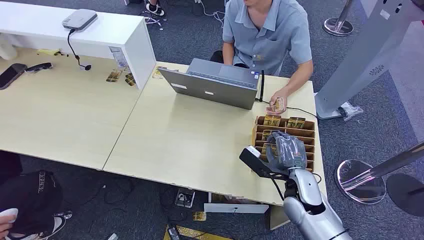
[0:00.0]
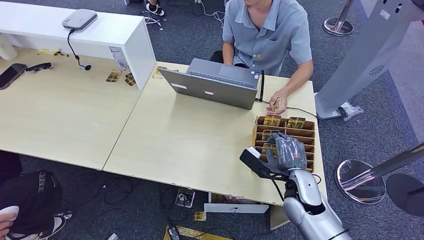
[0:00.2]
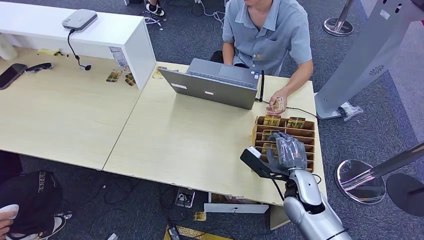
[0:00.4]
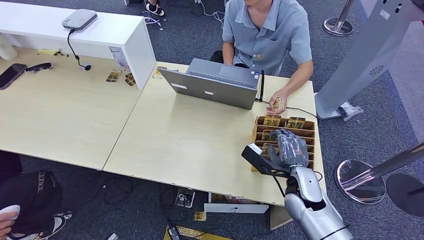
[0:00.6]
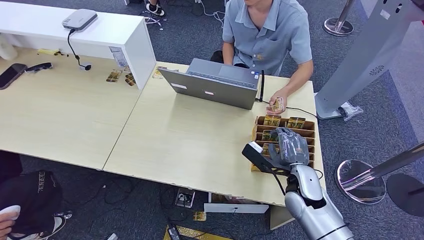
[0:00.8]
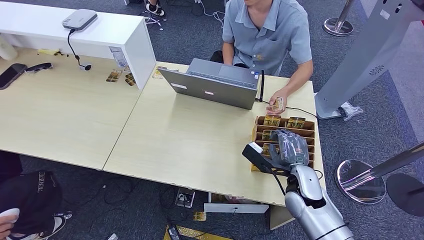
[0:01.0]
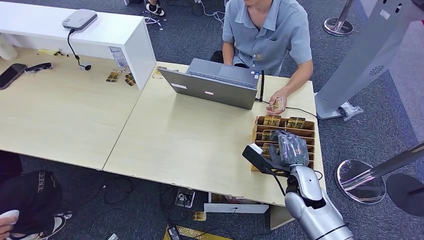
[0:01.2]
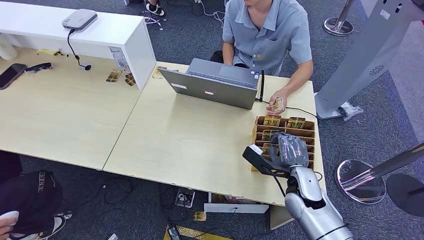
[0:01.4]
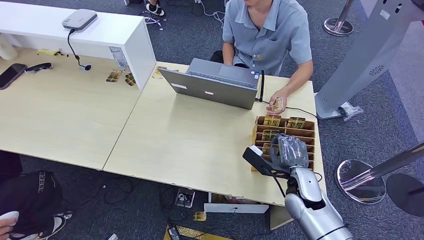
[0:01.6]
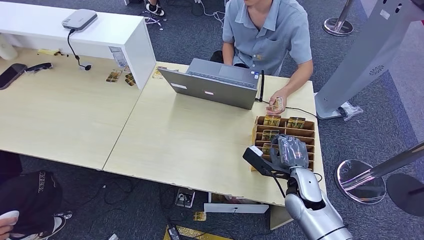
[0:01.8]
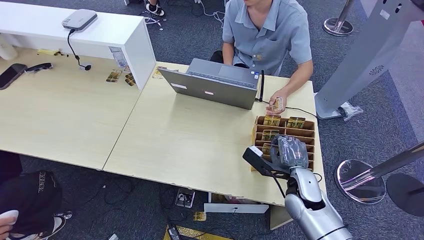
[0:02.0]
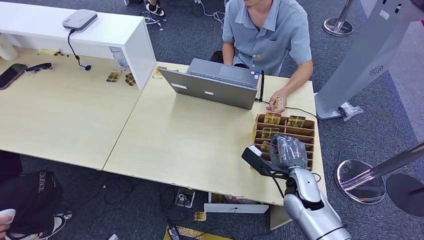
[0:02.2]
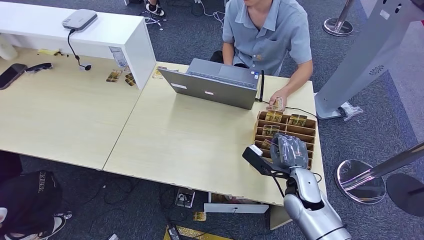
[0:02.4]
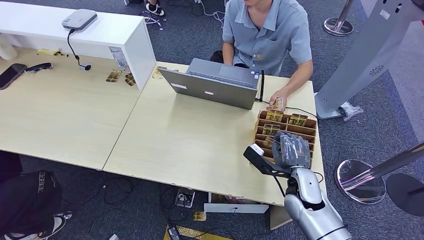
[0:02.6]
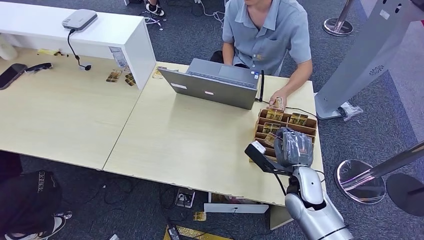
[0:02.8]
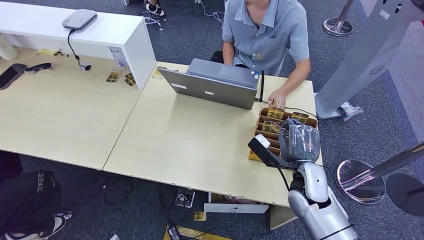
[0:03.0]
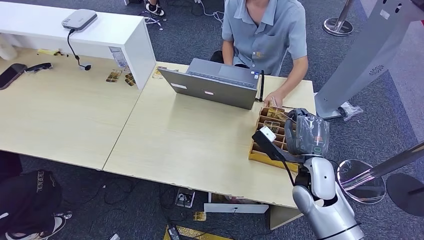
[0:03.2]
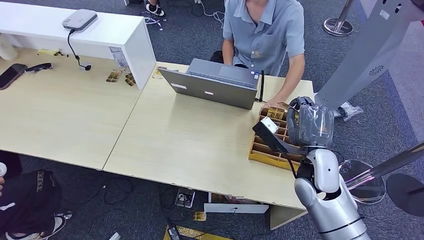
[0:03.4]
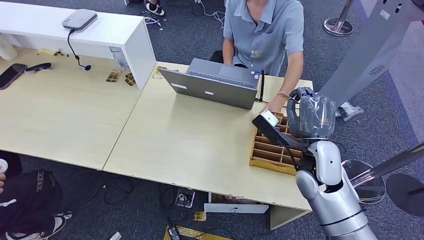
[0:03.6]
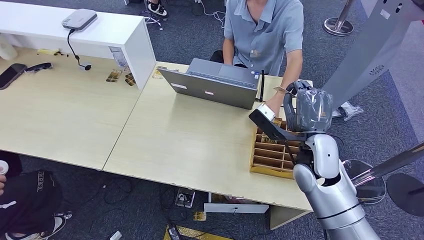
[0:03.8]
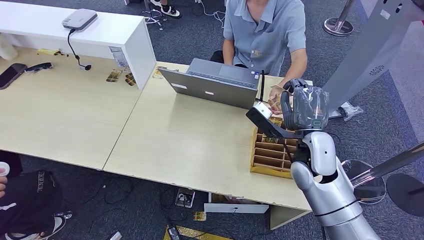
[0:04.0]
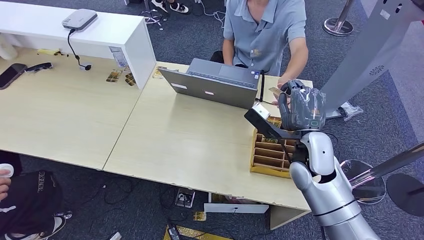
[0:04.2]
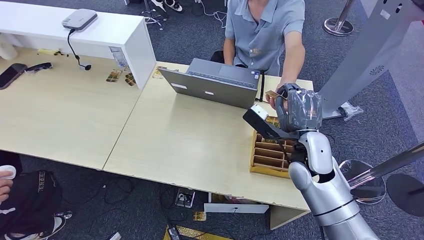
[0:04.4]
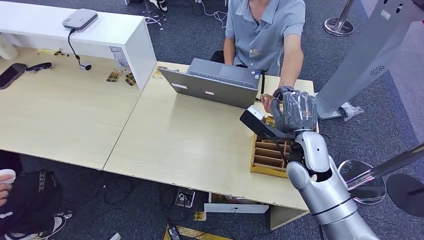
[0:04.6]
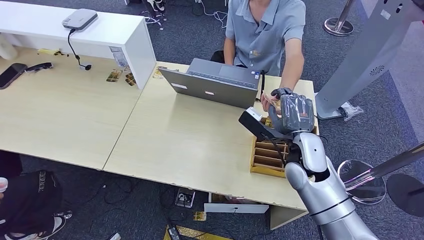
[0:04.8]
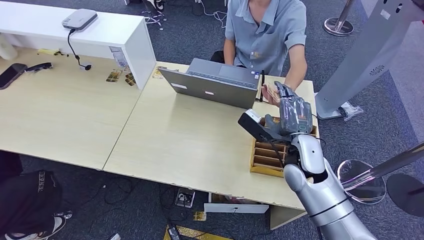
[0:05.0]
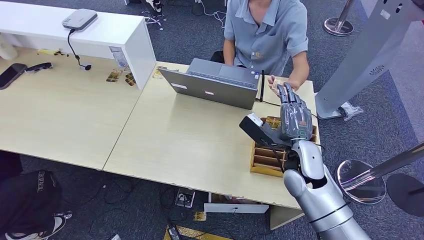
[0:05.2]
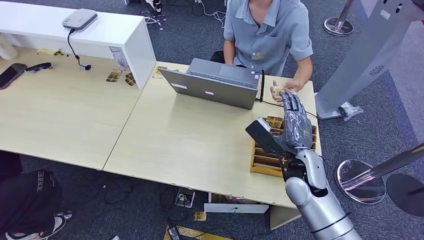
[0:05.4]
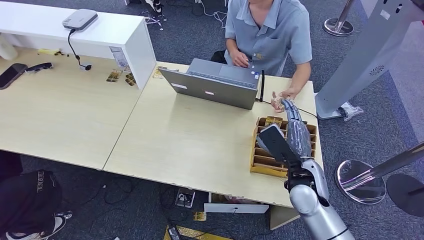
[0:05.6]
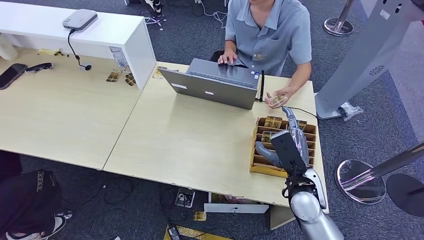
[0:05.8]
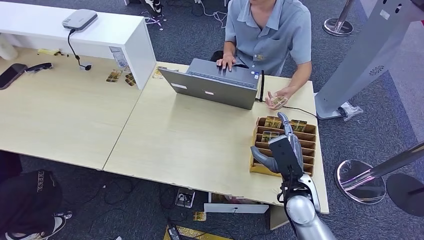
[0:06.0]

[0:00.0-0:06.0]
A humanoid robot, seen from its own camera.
Step, 0:00.0 to 0:03.6: Pick up the room card from the card holder.
Step, 0:03.8 to 0:06.0: Hand the room card to the target.
0:01.6 to 0:03.0: The hands stay close to where they were, moving slightly.
0:03.0 to 0:04.4: The right hand travels upward by roughly 10 cm.
0:04.4 to 0:06.0: The right hand goes some 10 cm downward and backward.

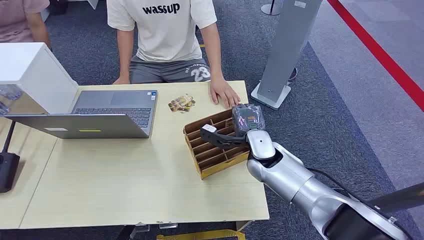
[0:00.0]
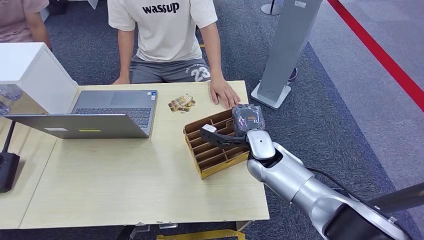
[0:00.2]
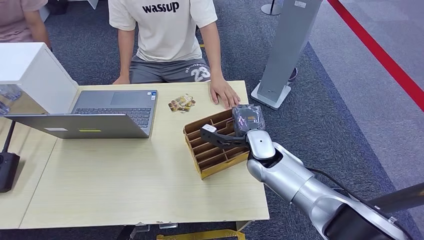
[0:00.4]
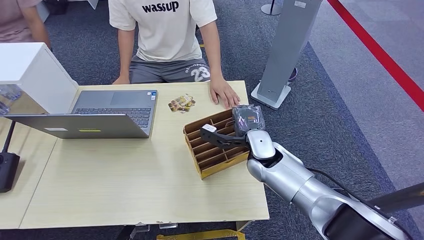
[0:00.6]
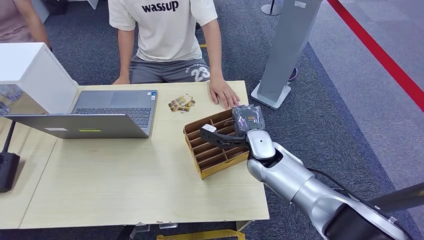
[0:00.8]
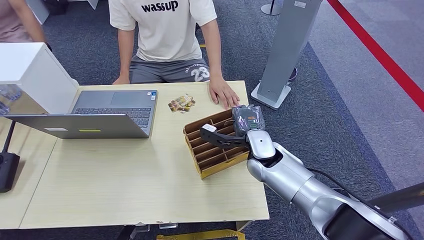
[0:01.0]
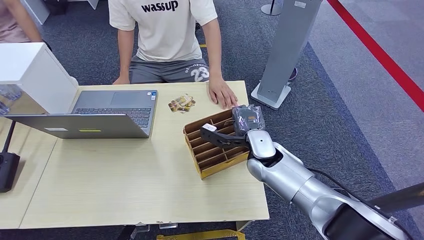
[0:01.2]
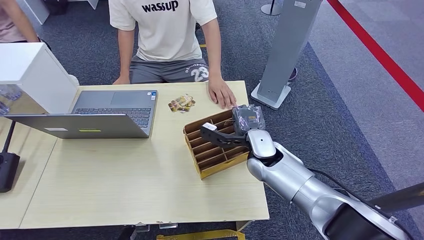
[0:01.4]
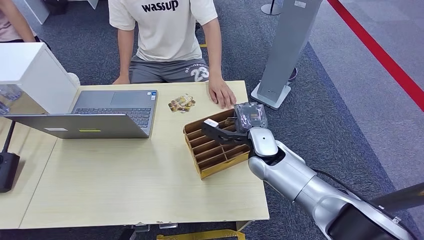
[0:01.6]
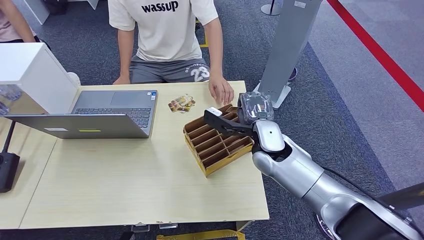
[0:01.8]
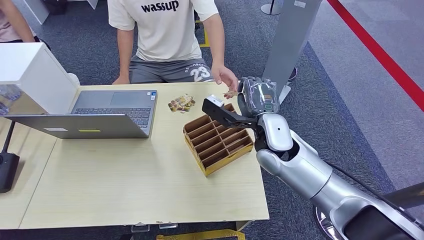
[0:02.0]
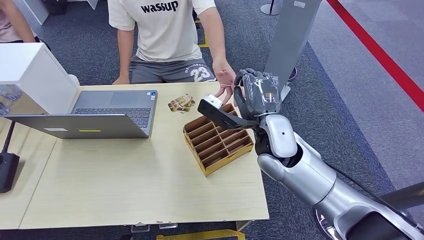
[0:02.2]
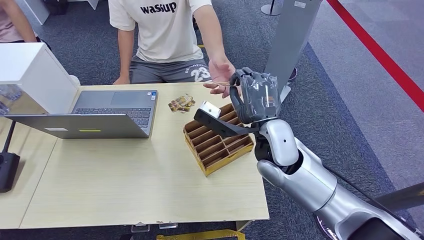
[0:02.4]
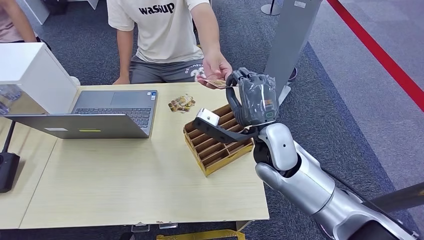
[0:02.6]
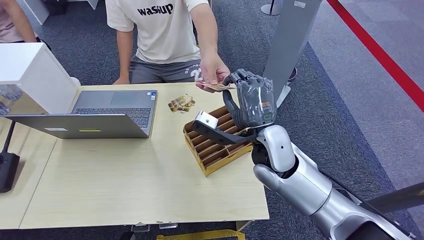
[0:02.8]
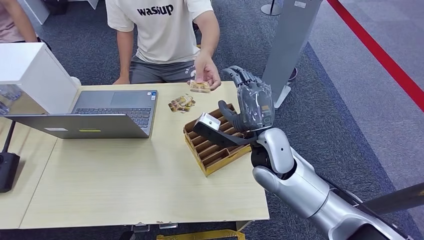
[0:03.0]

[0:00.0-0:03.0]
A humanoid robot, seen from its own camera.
Step, 0:01.8 to 0:03.0: Hand the room card to the target.
0:01.6 to 0:03.0: The right hand goes some 5 cm upward.

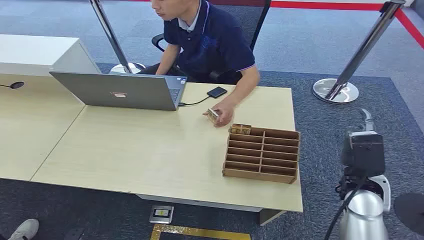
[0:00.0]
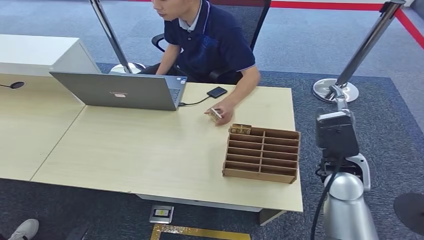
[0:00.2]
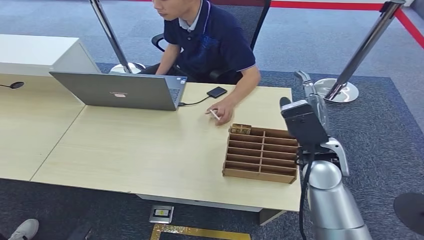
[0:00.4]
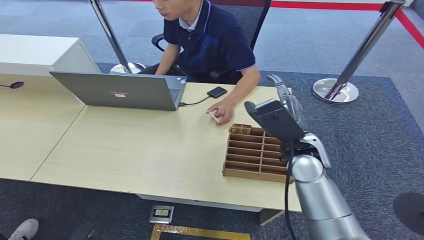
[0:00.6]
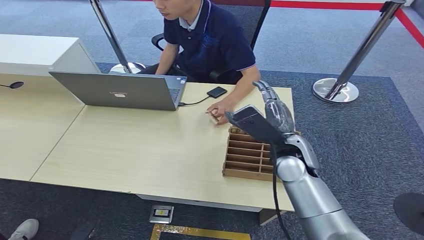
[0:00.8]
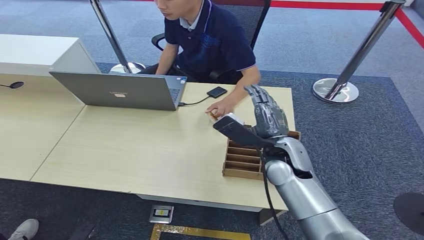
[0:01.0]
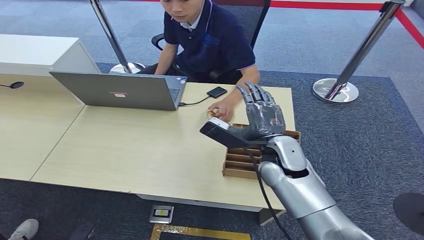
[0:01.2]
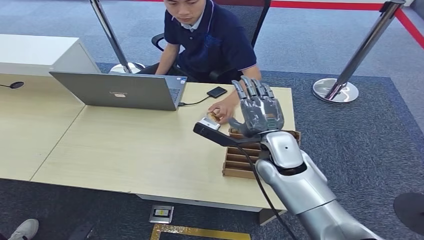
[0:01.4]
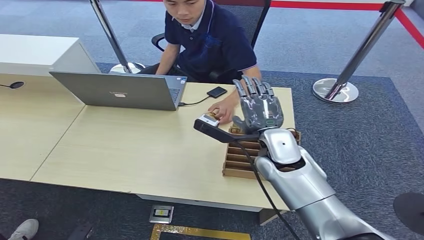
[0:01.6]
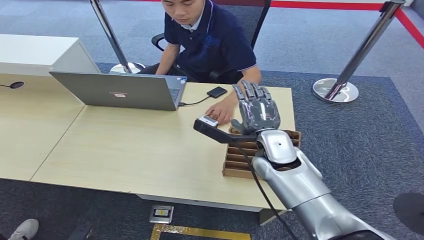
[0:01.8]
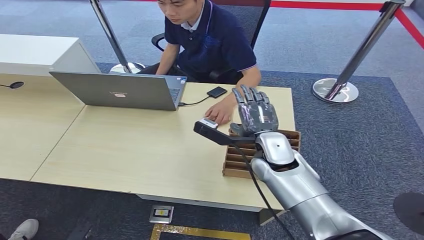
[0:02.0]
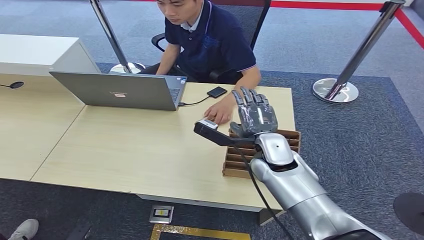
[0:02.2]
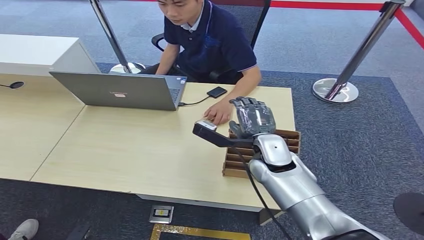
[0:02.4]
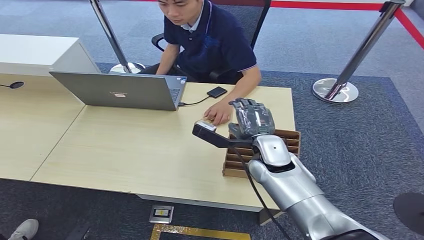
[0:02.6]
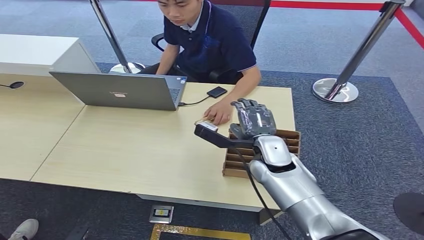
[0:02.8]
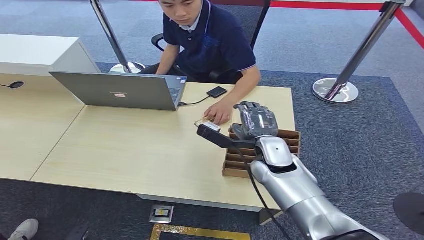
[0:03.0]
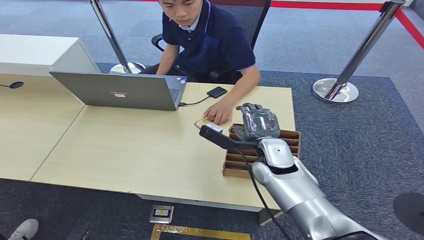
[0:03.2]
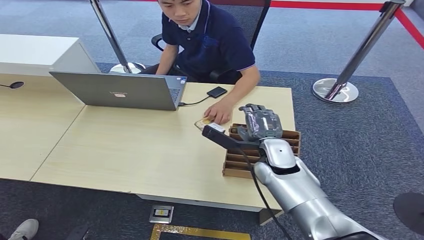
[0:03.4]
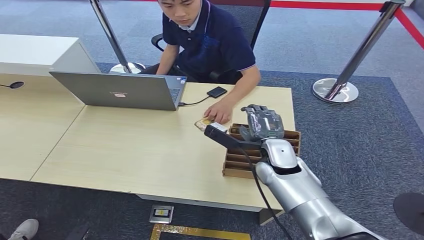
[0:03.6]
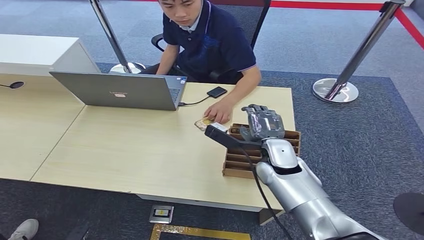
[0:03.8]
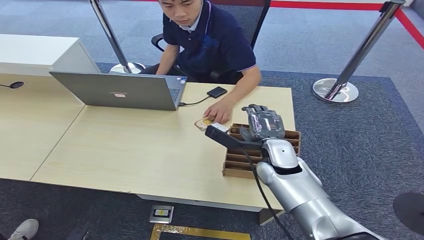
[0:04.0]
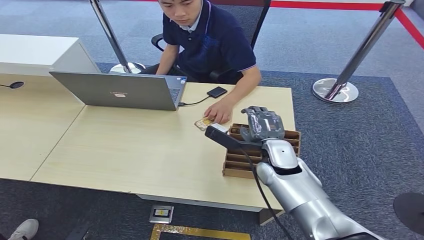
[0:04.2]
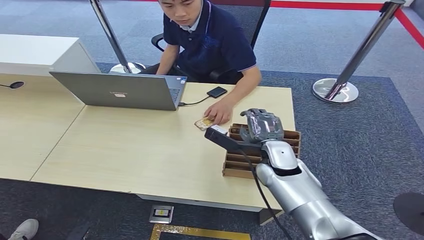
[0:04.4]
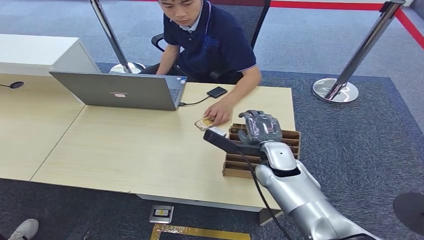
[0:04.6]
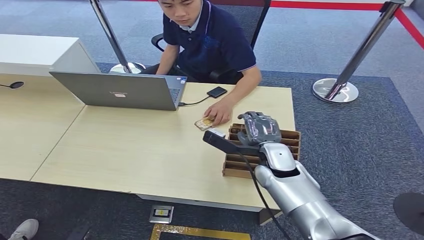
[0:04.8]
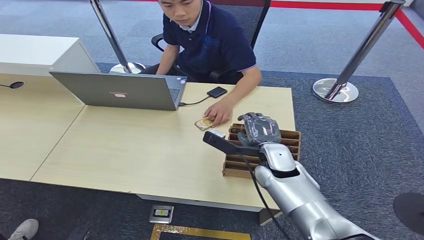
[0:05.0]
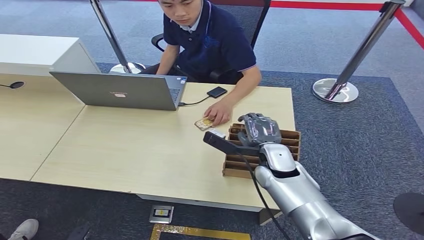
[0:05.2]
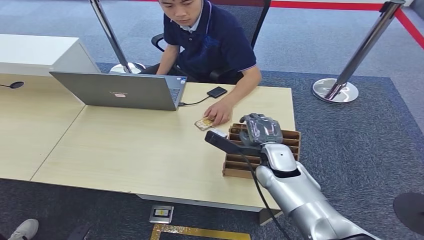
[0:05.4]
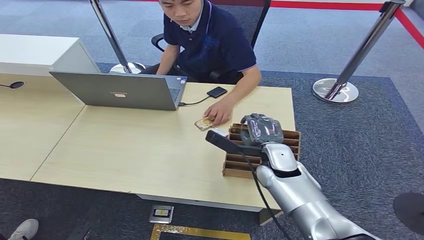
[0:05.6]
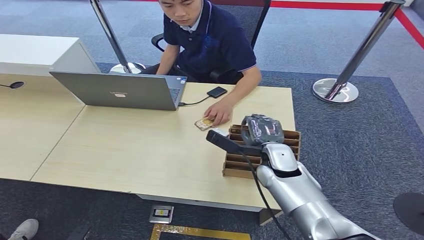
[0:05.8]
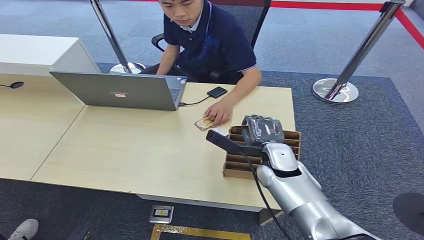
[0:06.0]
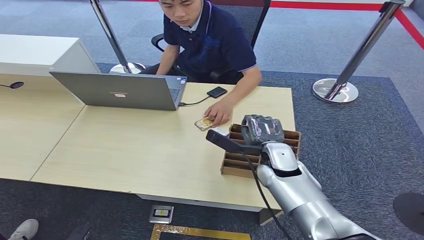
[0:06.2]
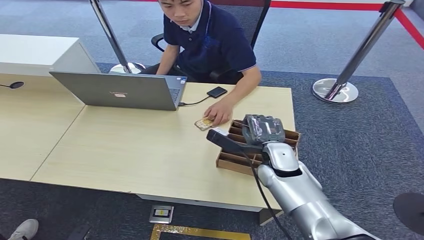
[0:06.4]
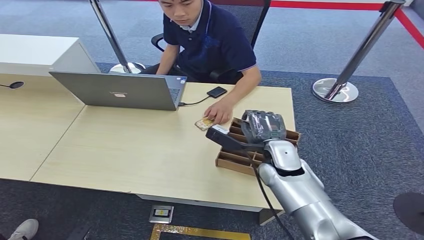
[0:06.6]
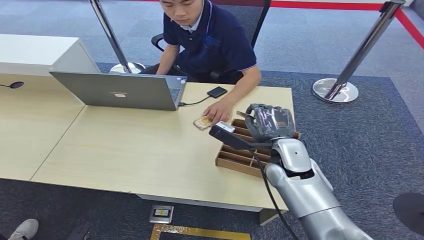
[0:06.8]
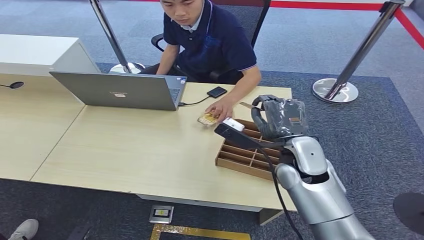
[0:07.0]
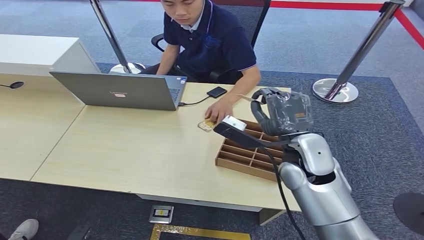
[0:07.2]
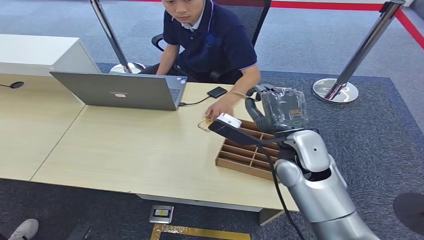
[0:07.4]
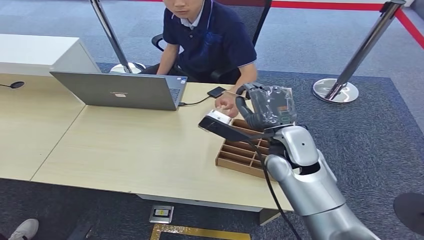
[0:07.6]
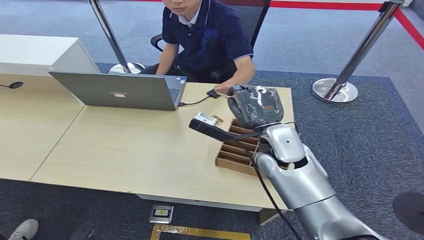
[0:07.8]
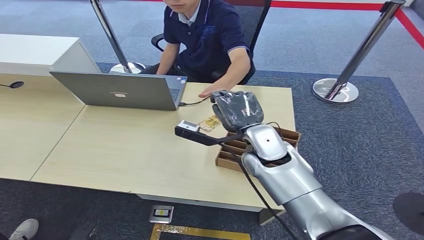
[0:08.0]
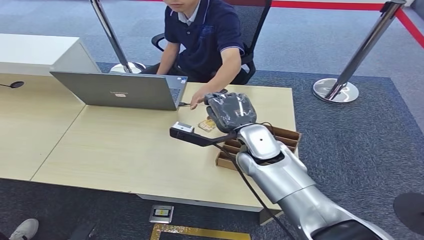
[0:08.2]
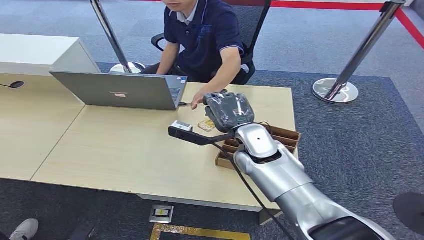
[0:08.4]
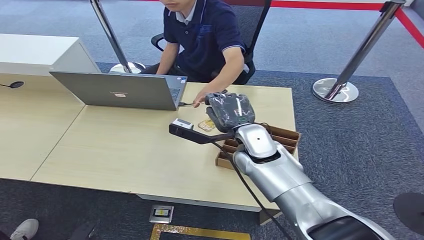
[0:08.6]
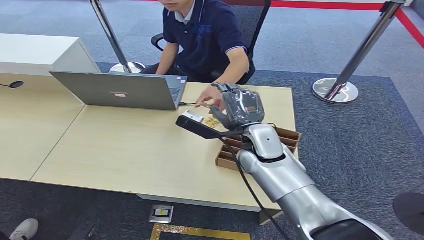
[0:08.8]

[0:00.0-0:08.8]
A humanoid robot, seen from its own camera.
Step, 0:00.0 to 0:07.0: Pick up the room card from the card holder.
Step, 0:07.2 to 0:08.8: Hand the room card to the target.
0:01.4 to 0:04.4: The hands stay close to where they were, moving slightly.
0:04.4 to 0:05.8: Neither hand changes place.
0:05.8 to 0:07.4: The right hand travels upward by some 10 cm.
0:07.4 to 0:08.8: The right hand ends up about 5 cm from where it was.
